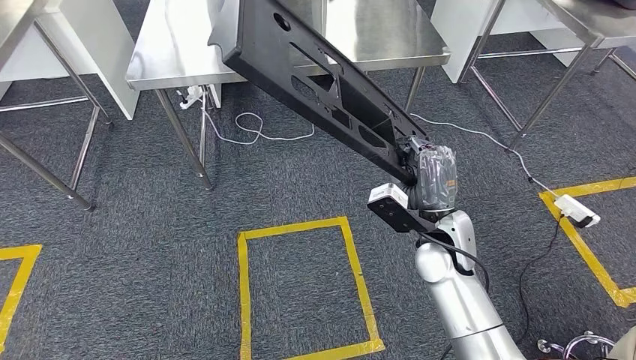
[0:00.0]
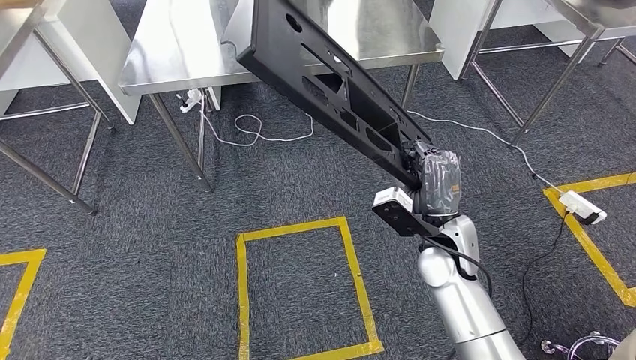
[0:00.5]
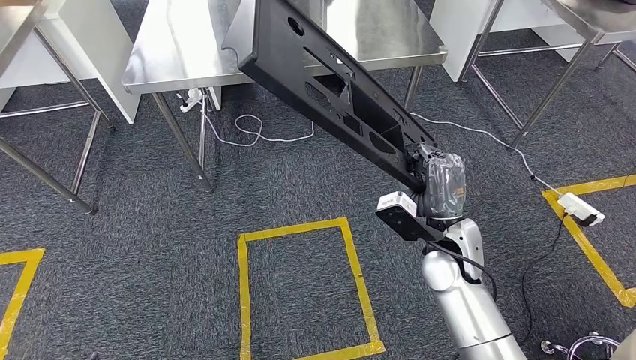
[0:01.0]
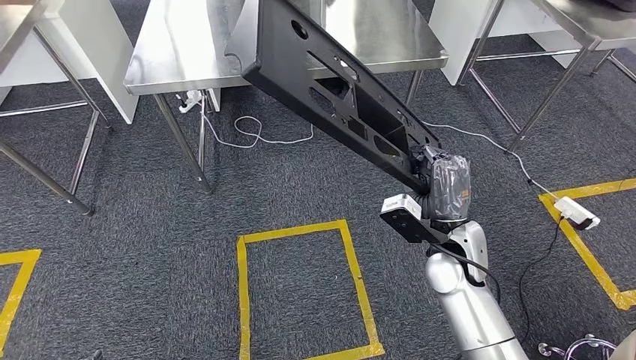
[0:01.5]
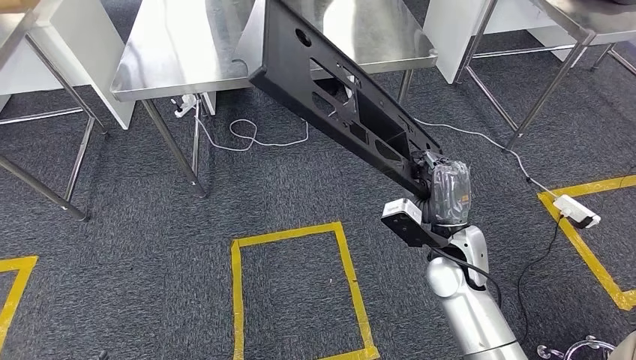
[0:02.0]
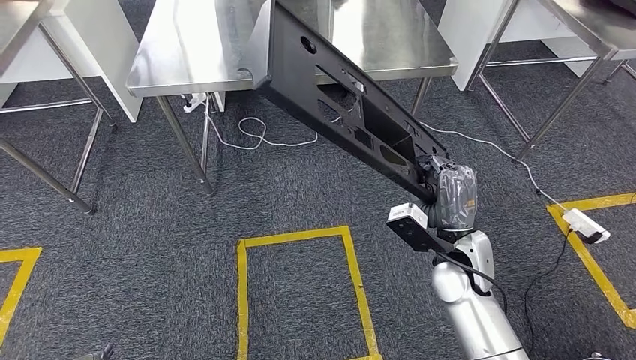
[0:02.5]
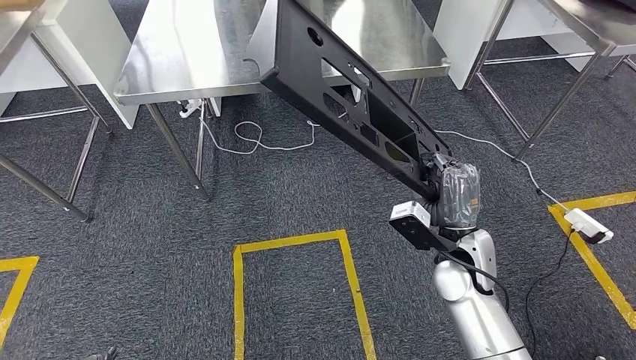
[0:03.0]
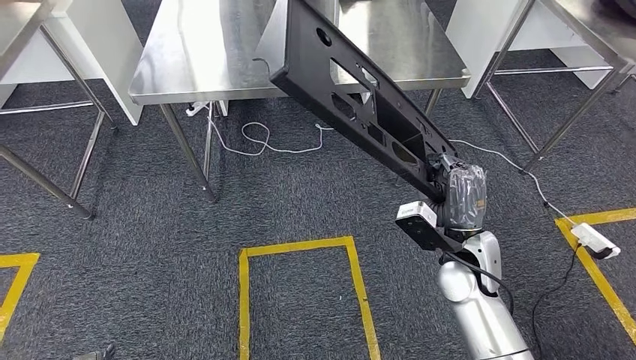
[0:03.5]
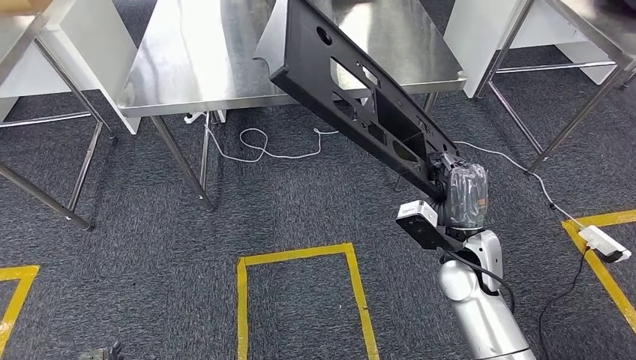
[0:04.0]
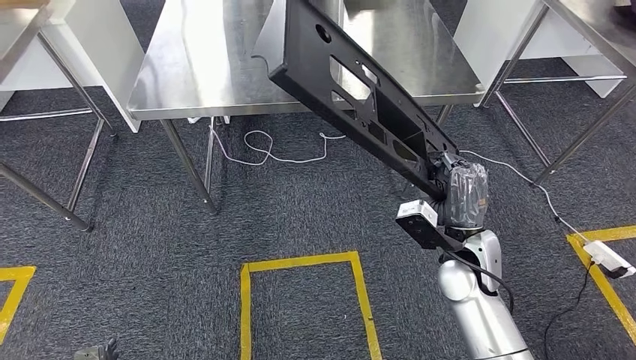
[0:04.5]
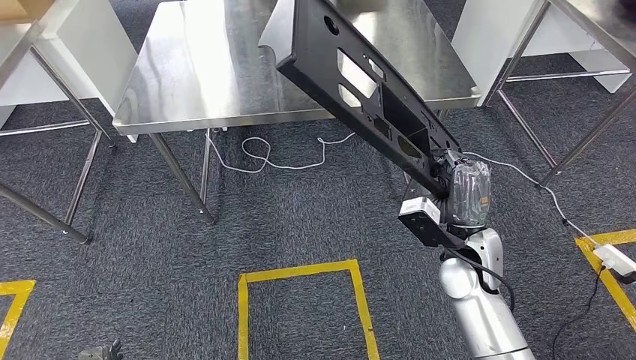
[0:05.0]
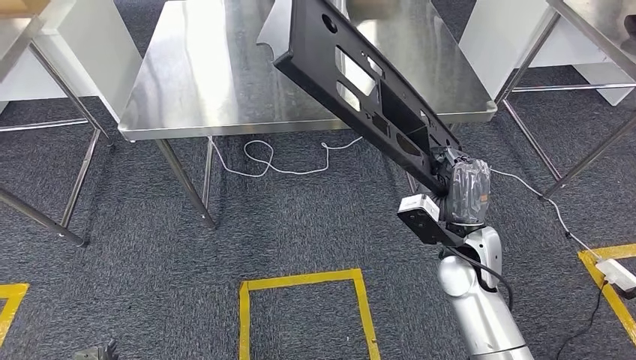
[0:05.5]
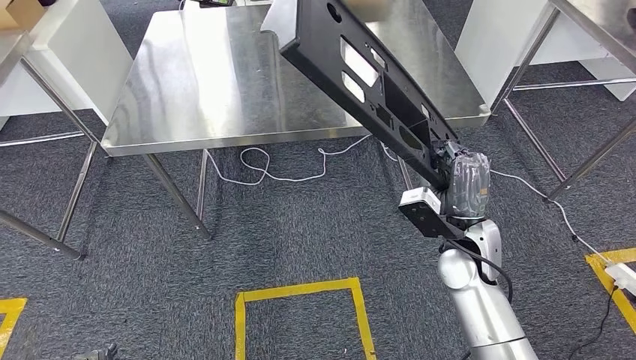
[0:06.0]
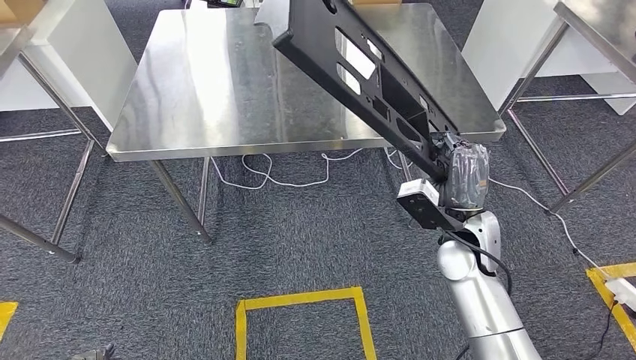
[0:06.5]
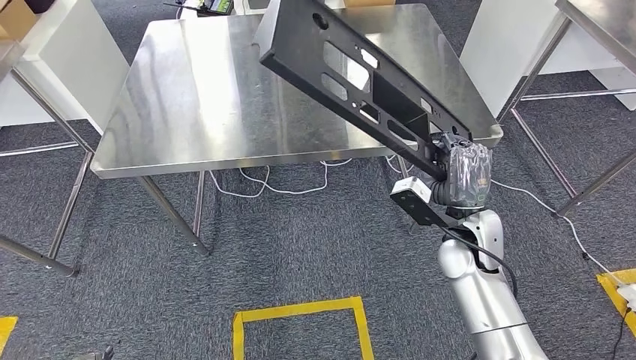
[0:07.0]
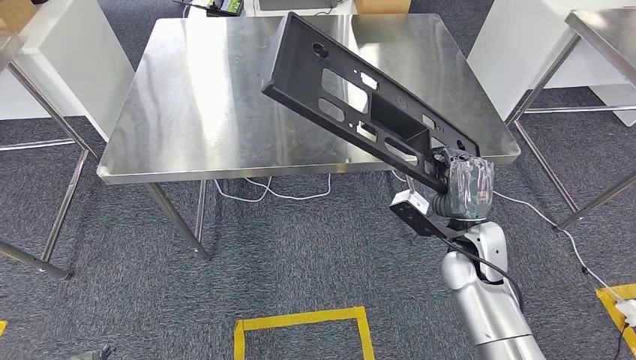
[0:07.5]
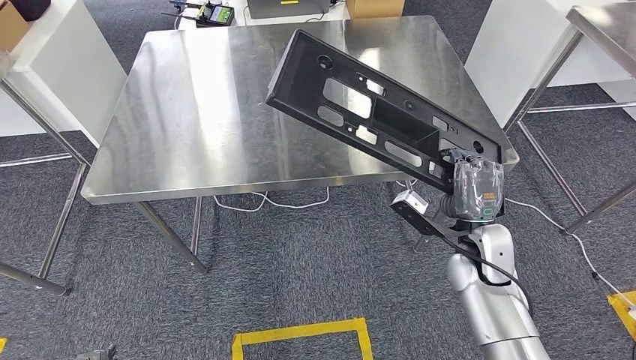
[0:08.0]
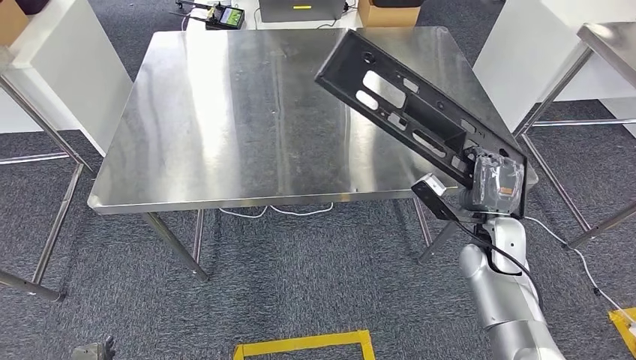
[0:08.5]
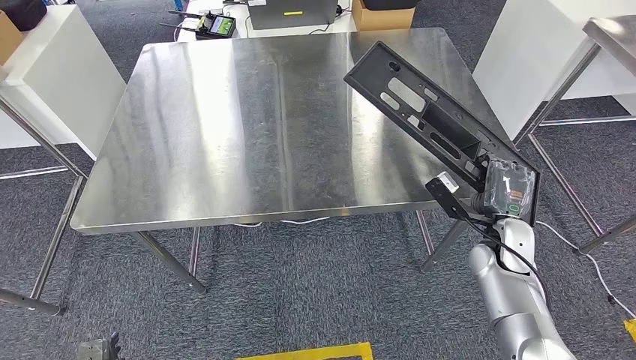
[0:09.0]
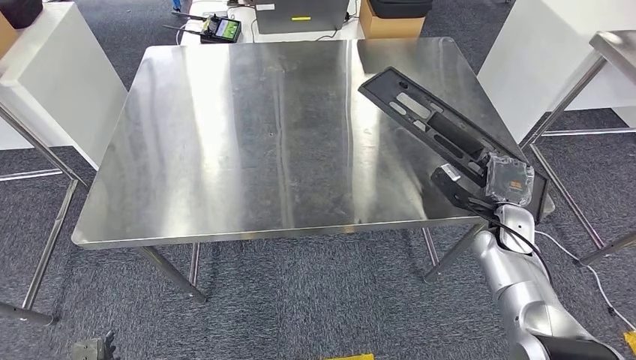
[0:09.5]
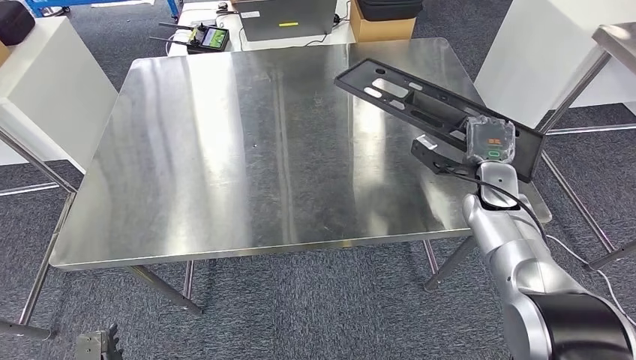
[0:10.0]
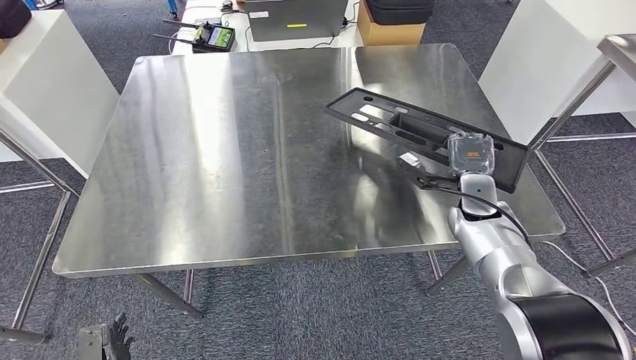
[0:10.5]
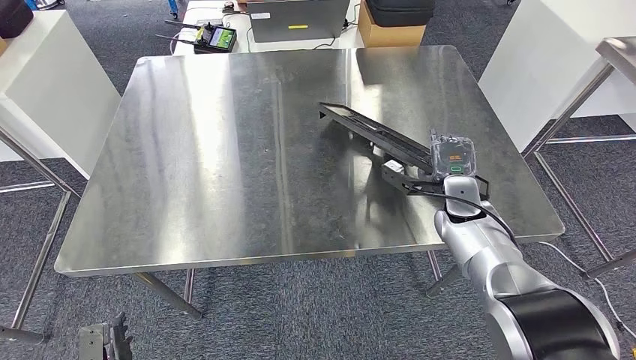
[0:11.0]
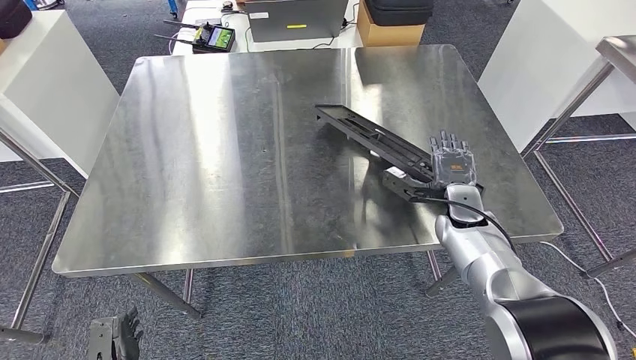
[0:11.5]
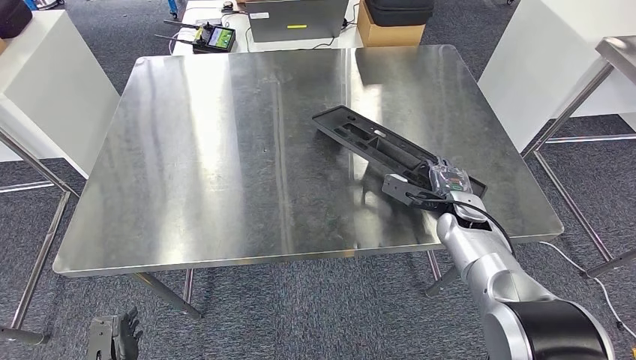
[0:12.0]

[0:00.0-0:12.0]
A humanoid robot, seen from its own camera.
Step, 0:00.0 to 0:05.0: Move the large material to the workbench.

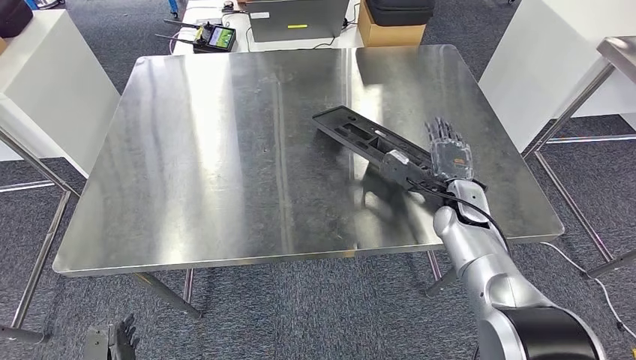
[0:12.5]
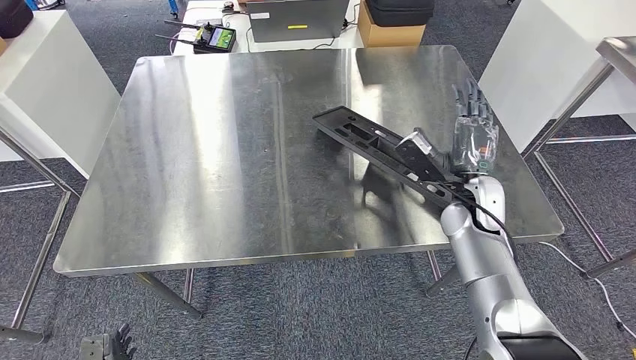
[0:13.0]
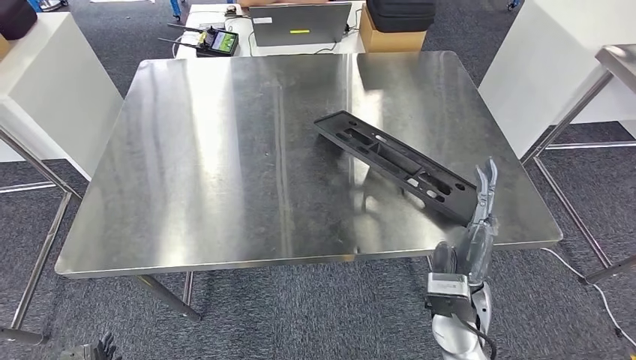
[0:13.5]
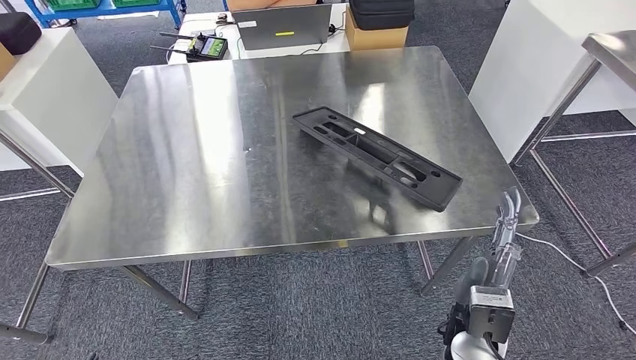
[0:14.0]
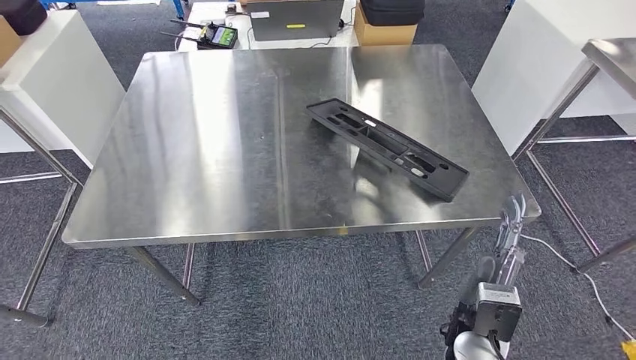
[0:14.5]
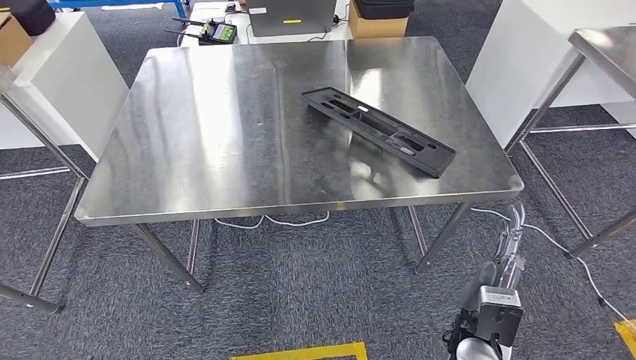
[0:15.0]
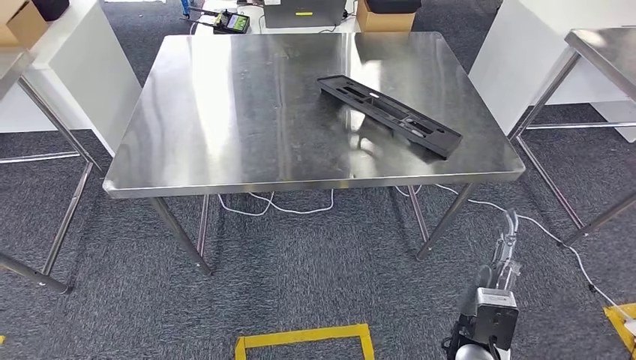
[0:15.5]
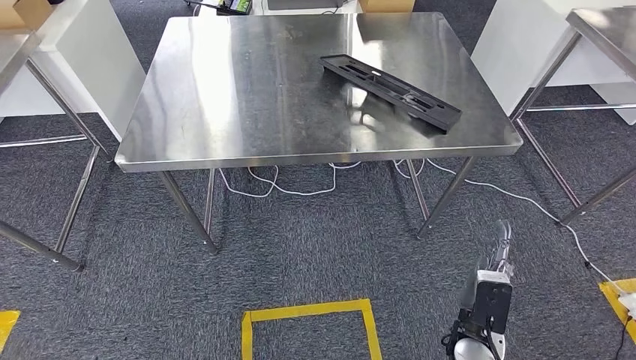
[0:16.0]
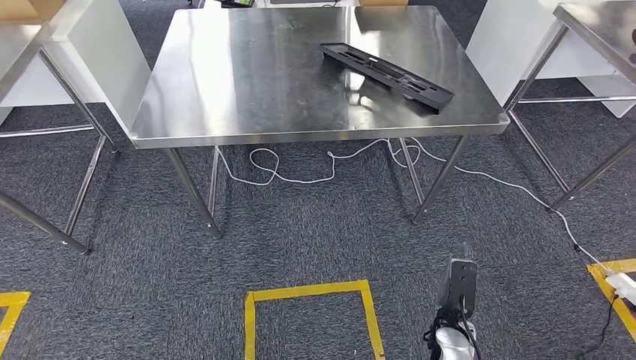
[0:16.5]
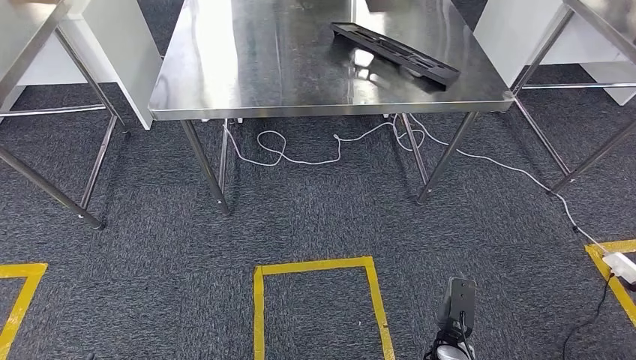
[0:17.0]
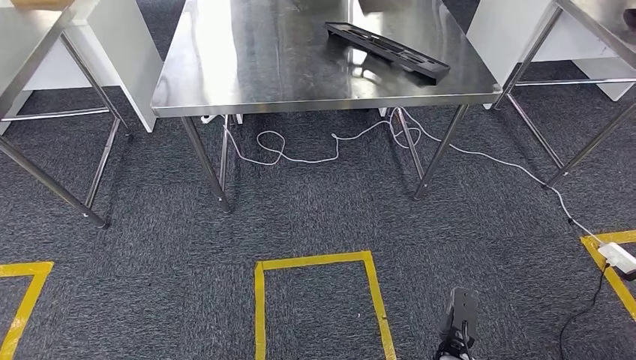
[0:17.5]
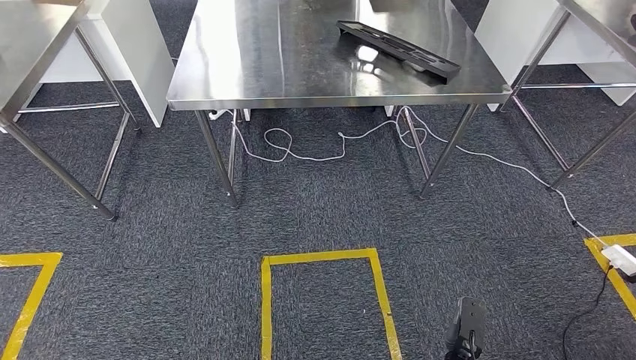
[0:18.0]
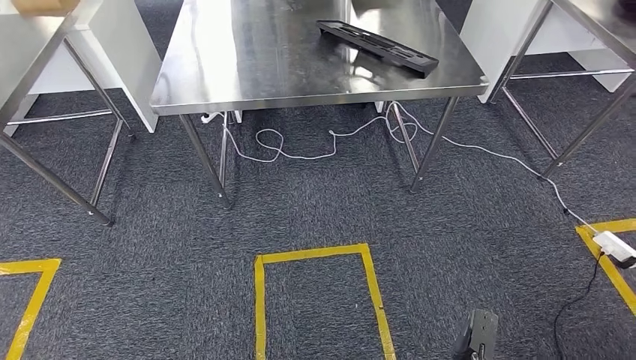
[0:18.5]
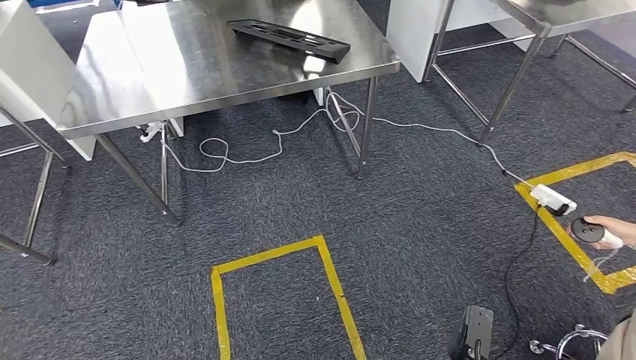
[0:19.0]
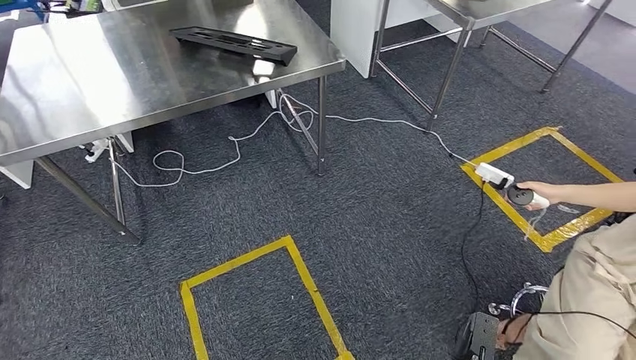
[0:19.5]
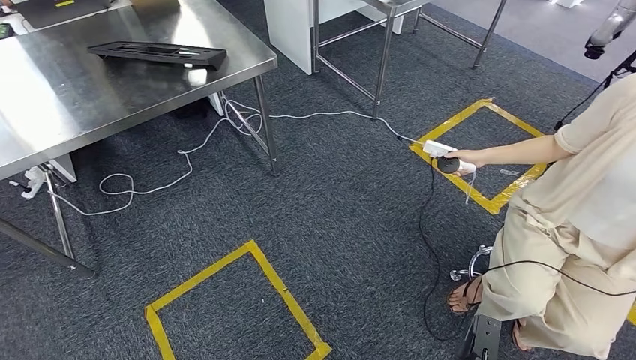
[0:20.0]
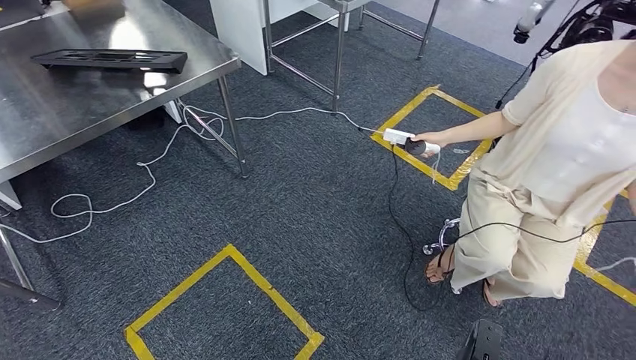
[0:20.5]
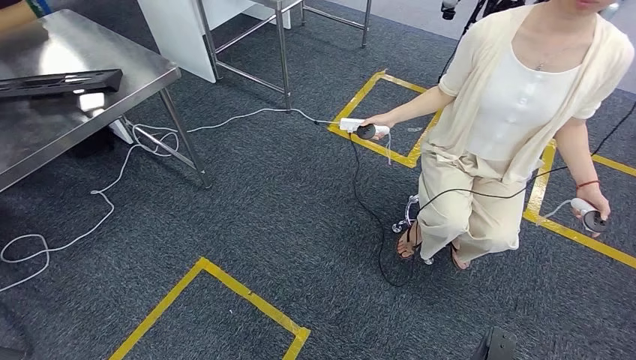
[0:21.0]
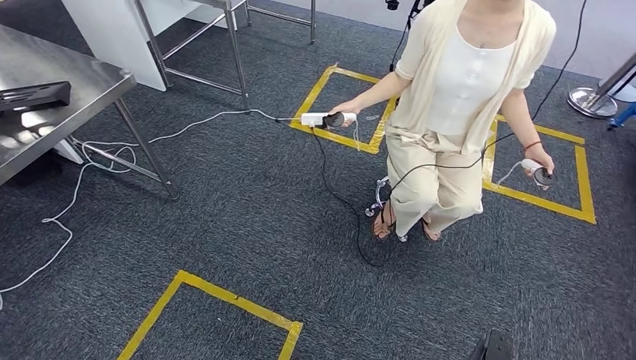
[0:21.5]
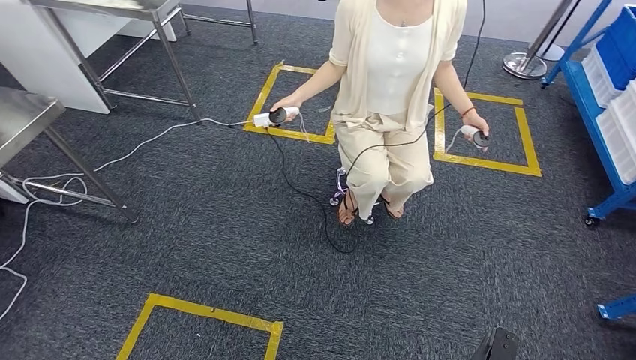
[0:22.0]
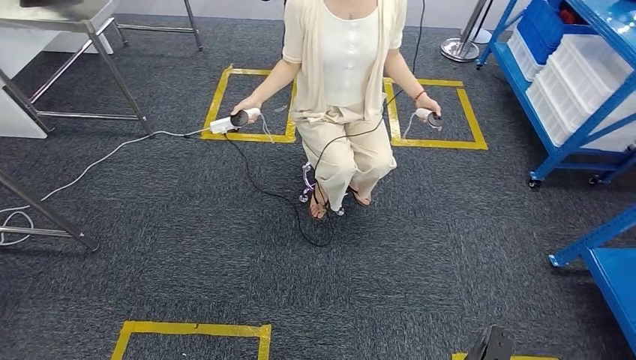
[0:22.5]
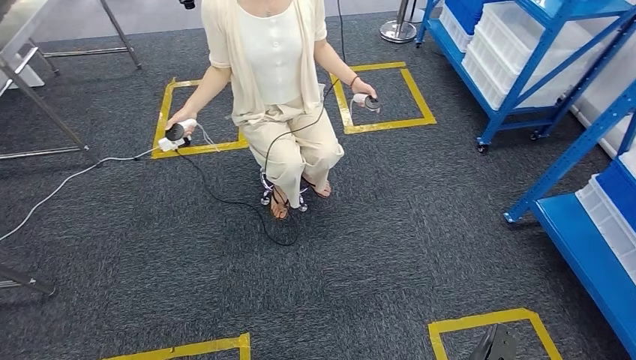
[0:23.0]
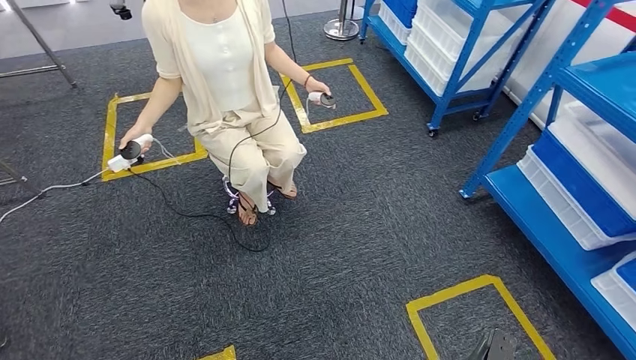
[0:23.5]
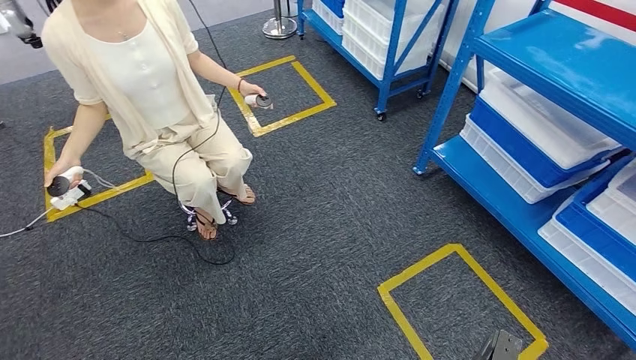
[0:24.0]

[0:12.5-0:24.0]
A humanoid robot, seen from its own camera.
Step, 0:12.5 to 0:18.0: Insert the large material into the corresponding slot on the workbench.
